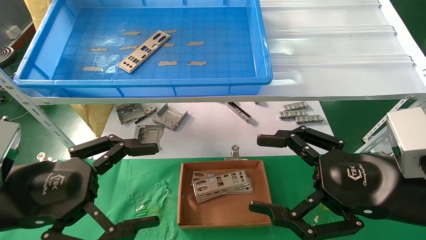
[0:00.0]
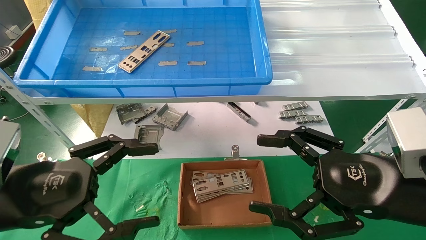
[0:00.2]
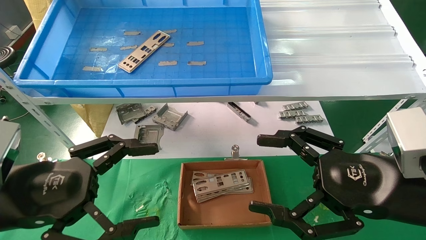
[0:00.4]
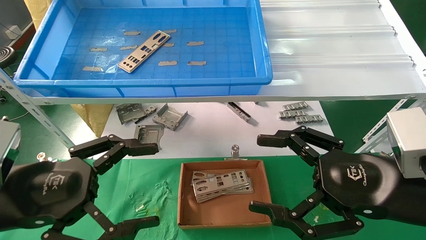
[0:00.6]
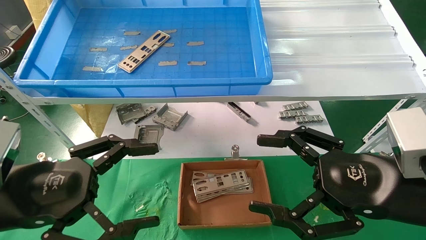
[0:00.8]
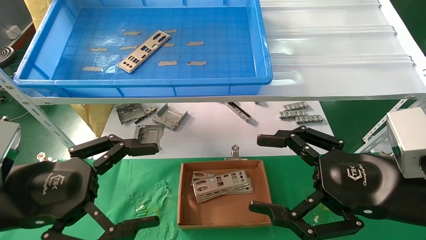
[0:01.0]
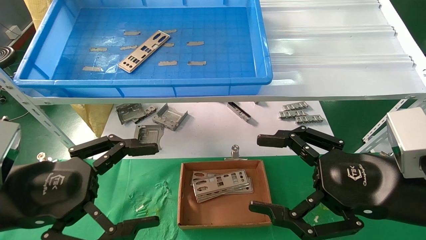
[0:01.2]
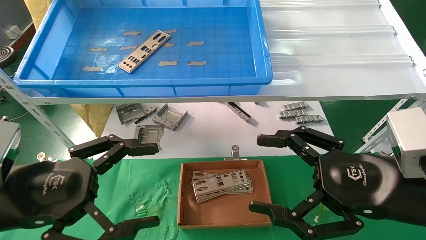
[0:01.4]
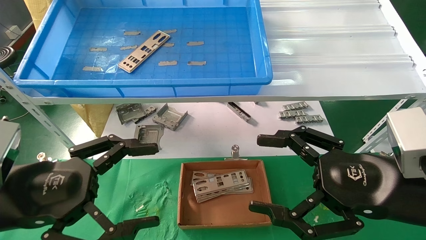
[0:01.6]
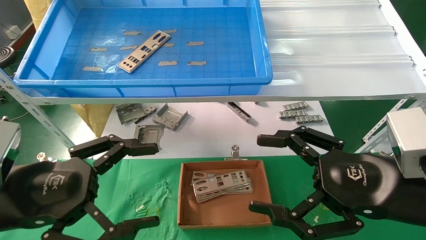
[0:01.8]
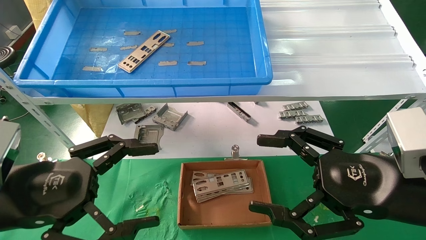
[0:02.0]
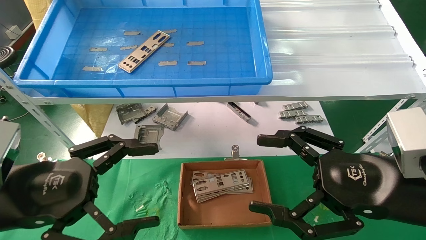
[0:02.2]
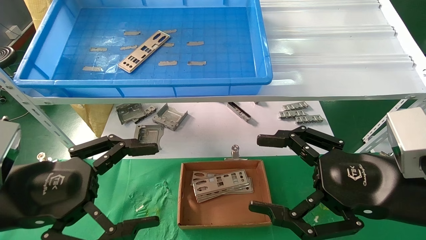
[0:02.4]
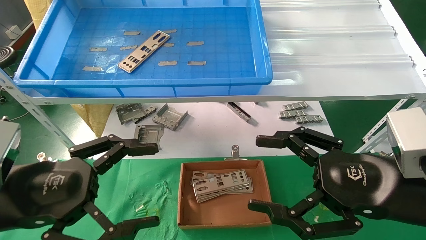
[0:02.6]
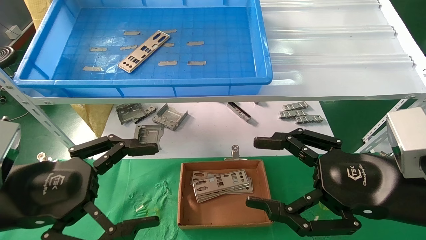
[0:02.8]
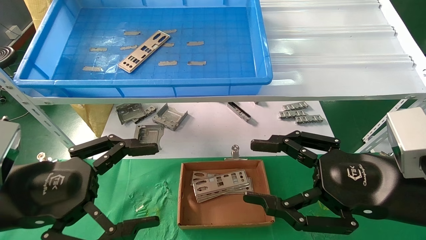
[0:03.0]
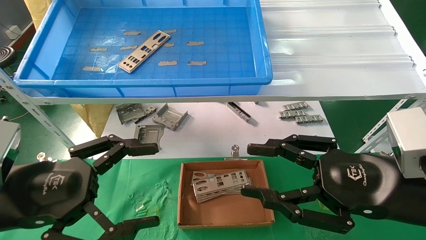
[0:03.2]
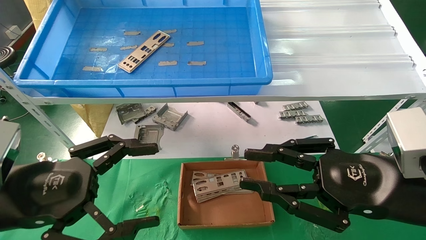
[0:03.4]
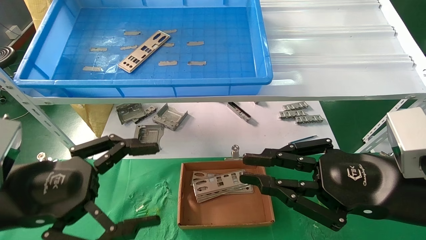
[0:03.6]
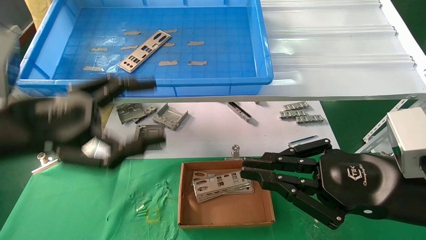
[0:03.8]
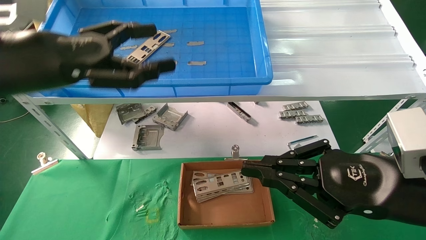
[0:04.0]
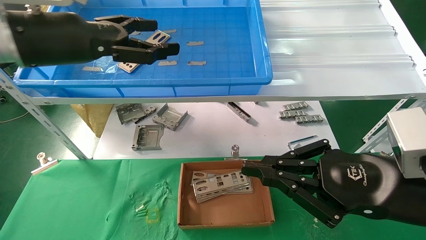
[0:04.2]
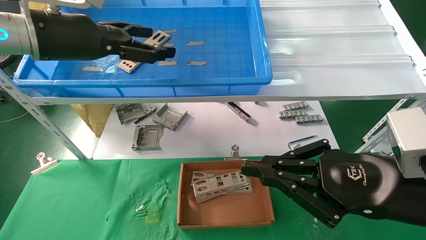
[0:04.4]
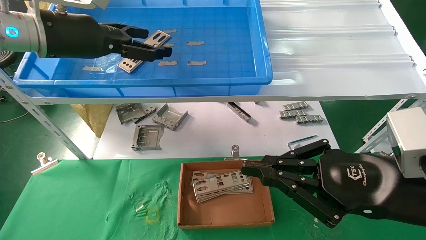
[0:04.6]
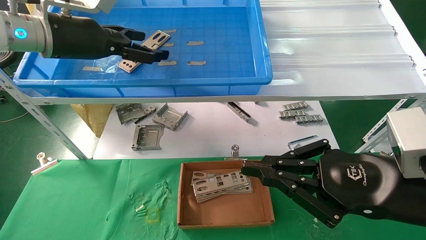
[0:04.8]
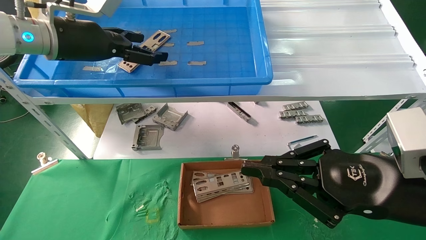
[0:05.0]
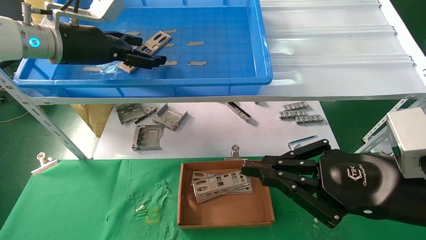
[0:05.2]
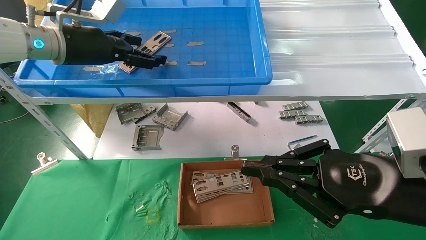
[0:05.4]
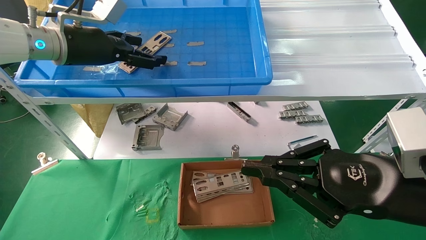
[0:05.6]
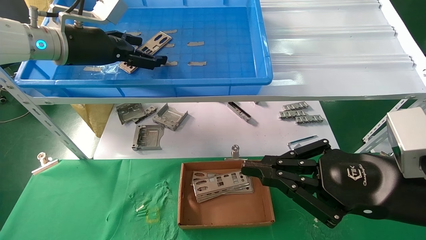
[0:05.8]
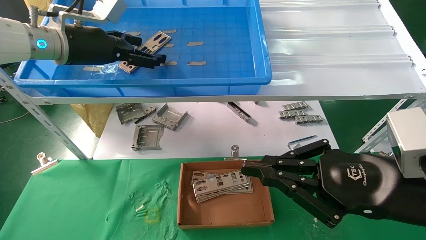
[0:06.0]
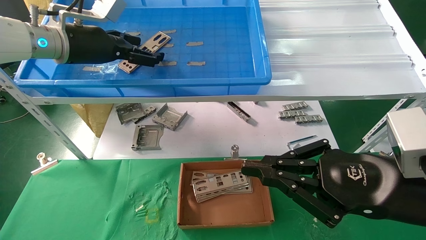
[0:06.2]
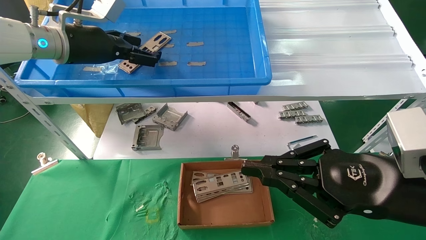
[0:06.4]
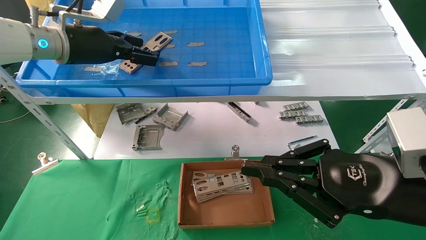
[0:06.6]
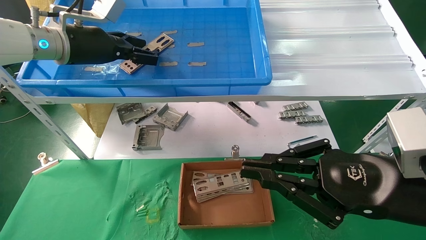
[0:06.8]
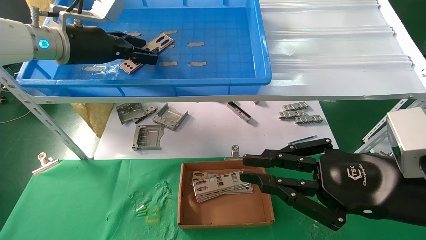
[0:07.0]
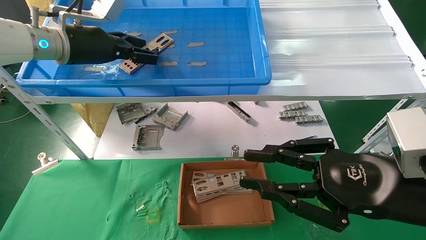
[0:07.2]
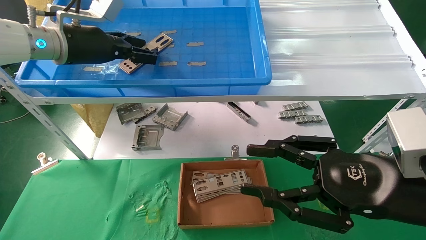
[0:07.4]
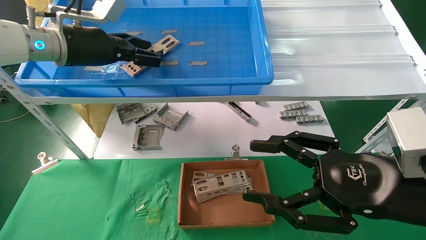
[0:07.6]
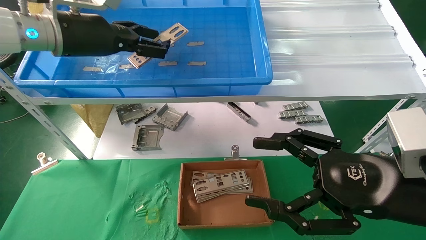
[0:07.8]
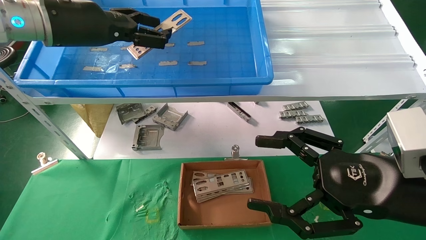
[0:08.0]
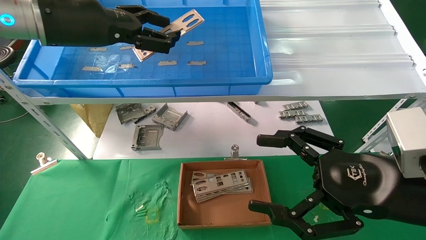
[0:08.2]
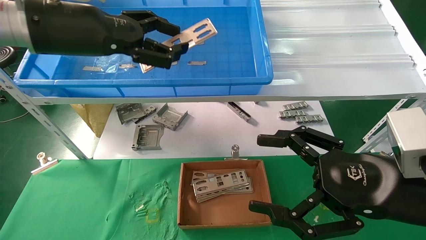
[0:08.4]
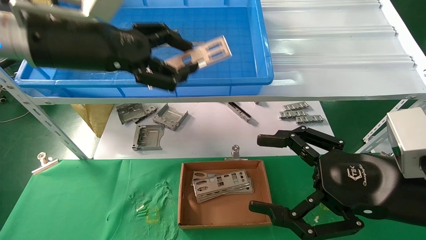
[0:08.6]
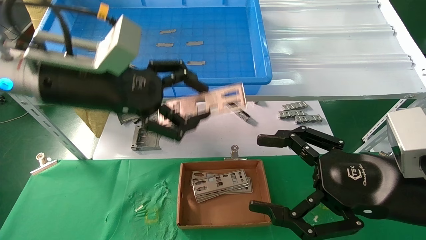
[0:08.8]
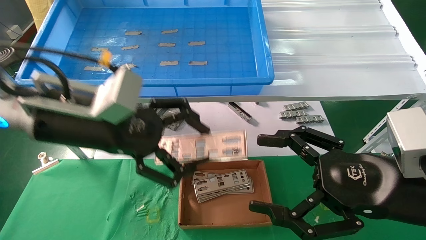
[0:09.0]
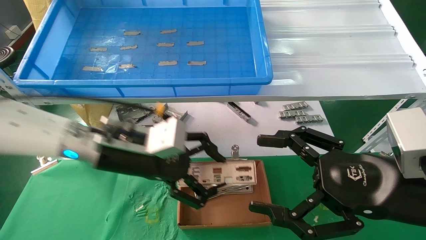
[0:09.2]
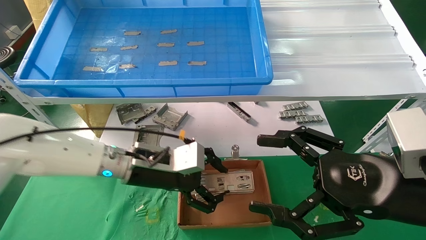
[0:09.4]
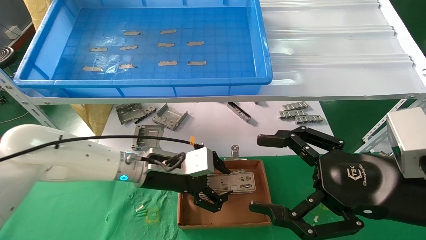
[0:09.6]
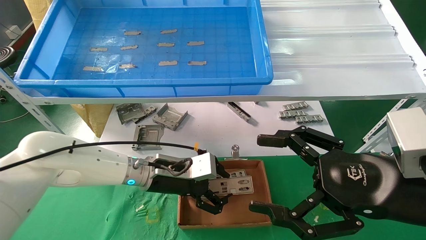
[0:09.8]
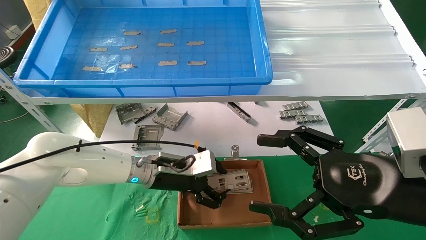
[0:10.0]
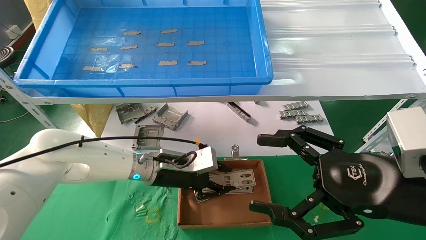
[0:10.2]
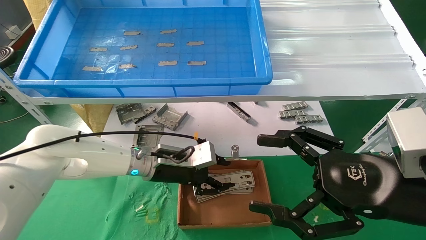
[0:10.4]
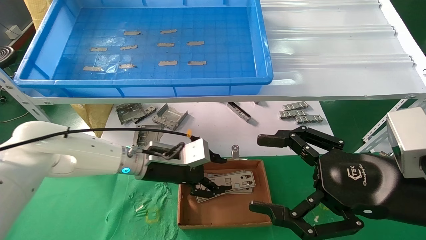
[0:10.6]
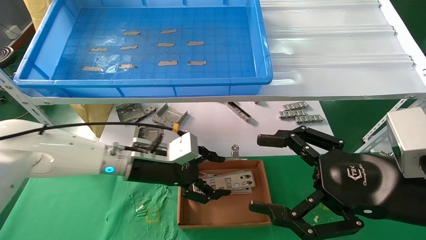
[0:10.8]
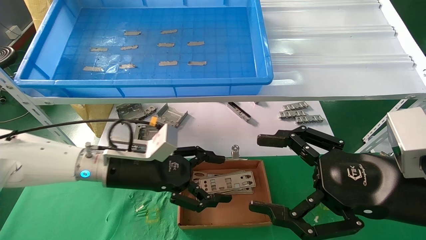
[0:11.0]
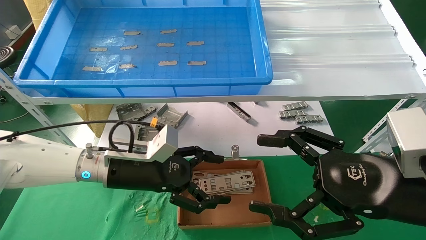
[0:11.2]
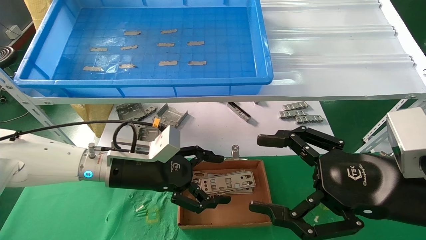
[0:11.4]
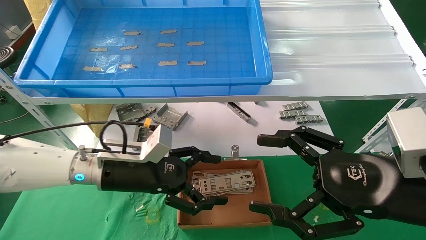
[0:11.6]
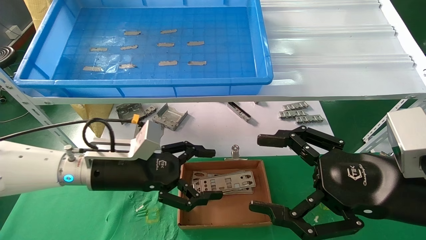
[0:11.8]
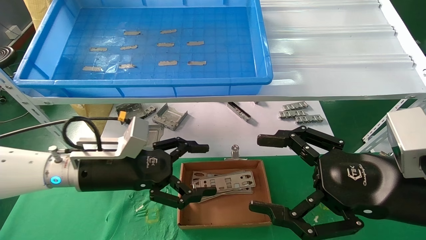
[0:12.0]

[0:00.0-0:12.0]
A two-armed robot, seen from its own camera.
Task of the whole recording: pick up the parts on the tray and put them in the cardboard box.
Step, 0:04.0 to 0:07.0: Pick up the IO bracket from the container box.
Step, 0:07.2 to 0:10.6: Place the IO bracket into the ingredient slot.
0:00.0 to 0:03.0: Both grippers stay put.
0:03.0 to 0:04.4: The right gripper closes up; the left gripper is displaced upward and forward by about 25 cm.
0:04.4 to 0:06.0: The left gripper shifts roughly 5 cm forward.
0:06.0 to 0:07.6: The left gripper closes up. Meanwhile the right gripper opens its fingers.
0:07.6 to 0:09.0: The right gripper opens up, while the left gripper travels downward, backward and to the right by approximately 15 cm.
0:09.0 to 0:10.4: The left gripper shifts about 20 cm downward, forward and to the right.
0:10.4 to 0:12.0: The left gripper heads backward and to the left, covering approximately 10 cm, and opens.

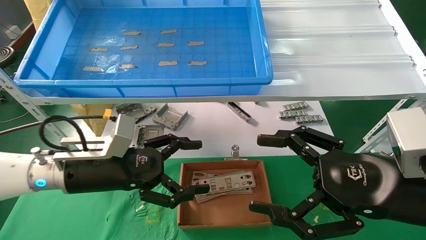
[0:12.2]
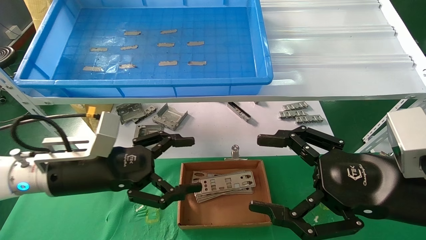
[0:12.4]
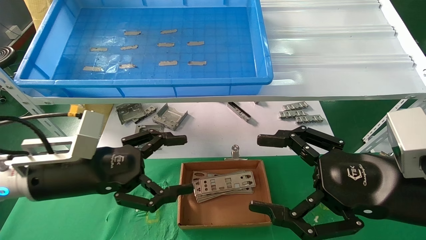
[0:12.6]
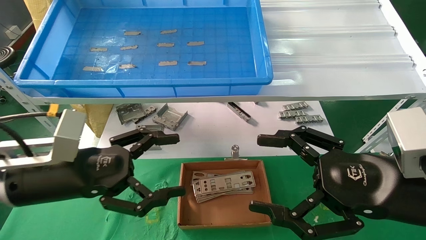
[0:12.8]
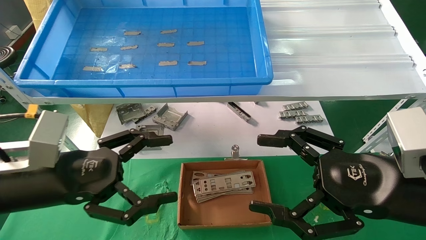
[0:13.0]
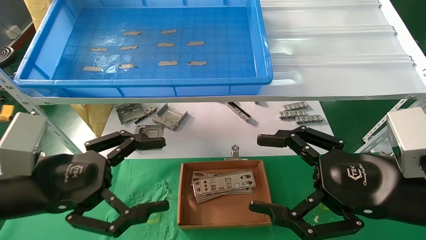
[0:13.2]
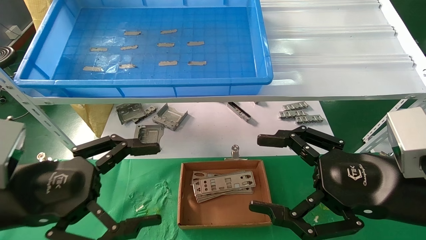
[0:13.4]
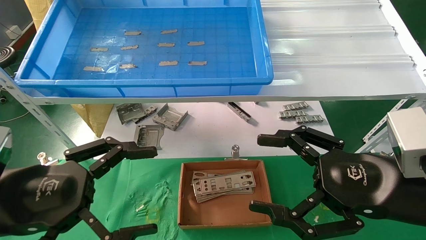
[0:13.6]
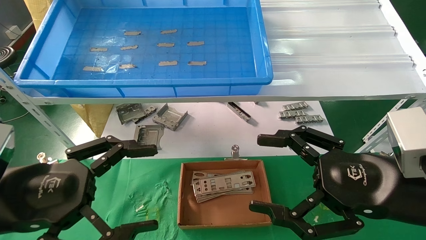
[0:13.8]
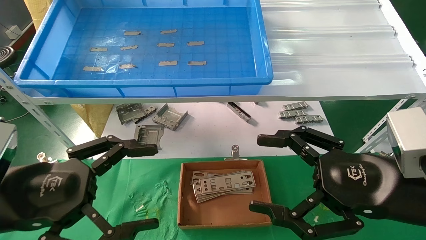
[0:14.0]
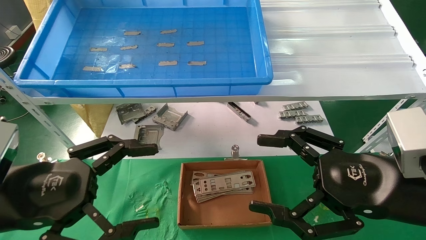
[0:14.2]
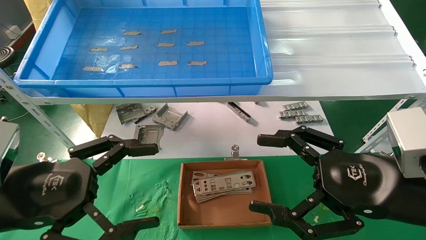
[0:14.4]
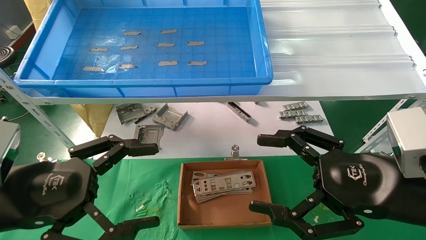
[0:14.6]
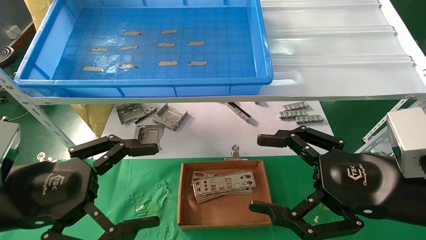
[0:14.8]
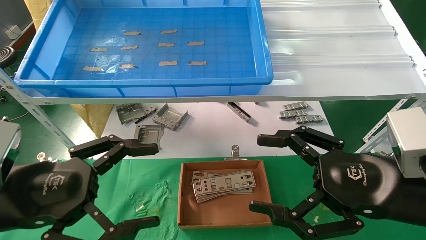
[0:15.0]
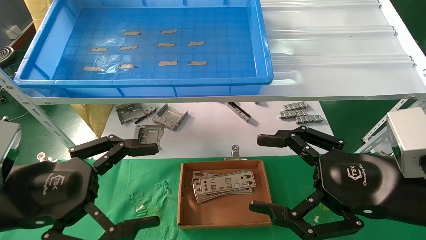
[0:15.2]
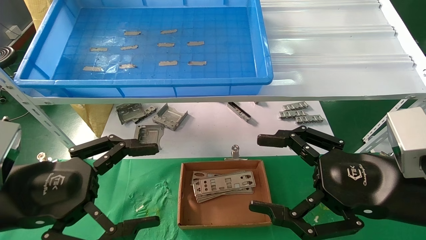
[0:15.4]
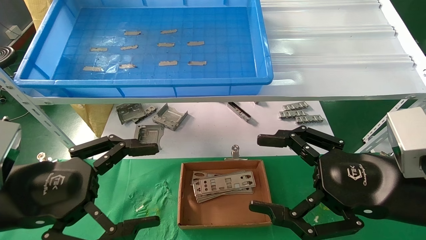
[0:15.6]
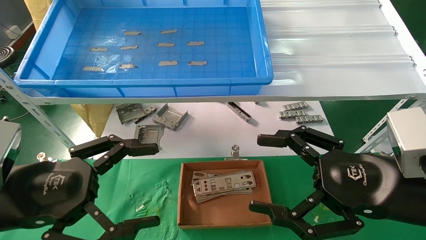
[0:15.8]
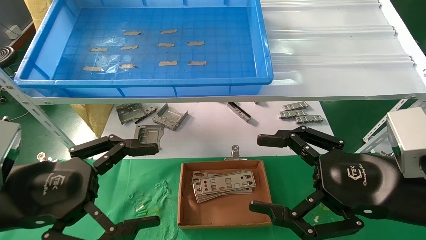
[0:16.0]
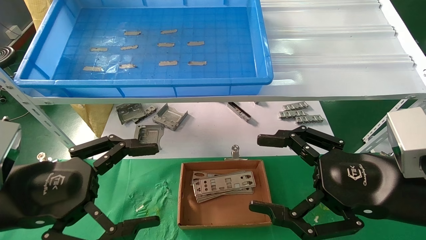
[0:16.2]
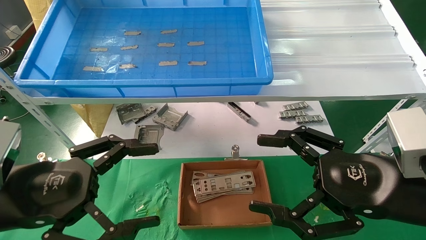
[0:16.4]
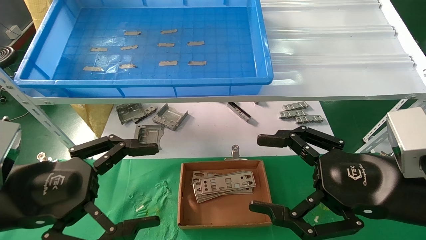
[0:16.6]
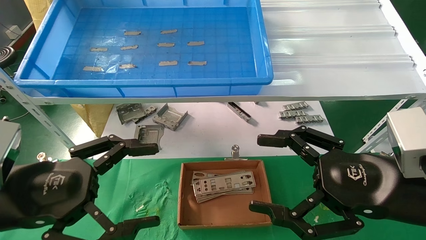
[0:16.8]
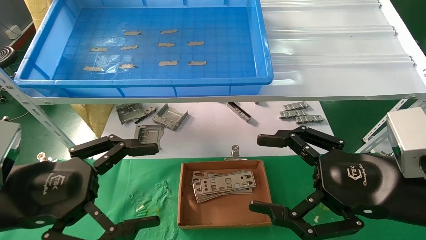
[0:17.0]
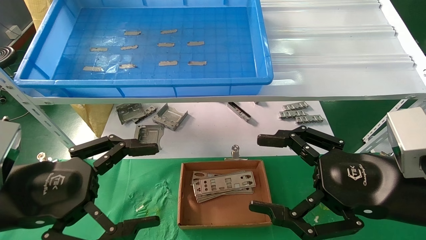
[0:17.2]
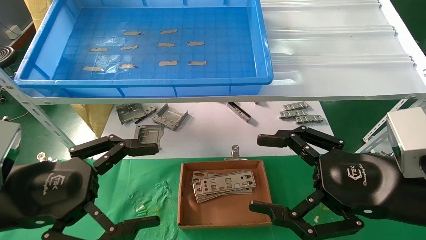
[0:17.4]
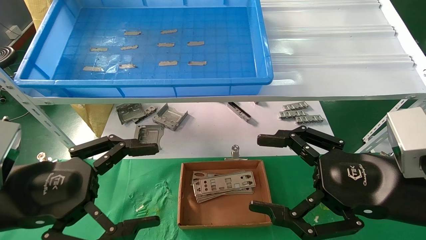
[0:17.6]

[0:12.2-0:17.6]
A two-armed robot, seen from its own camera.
Task of the whole recording: pick up the parts on the tray and put them in the cardboard box.
0:12.2 to 0:13.6: The left gripper travels backward and to the left by roughly 15 cm.
0:13.6 to 0:17.6: Neither gripper changes place.
